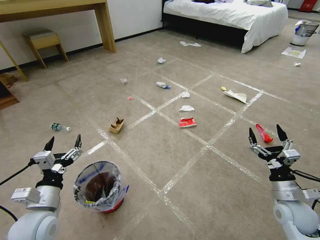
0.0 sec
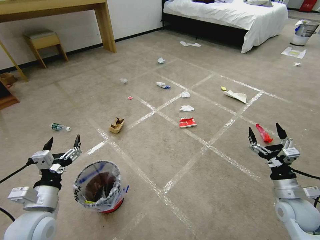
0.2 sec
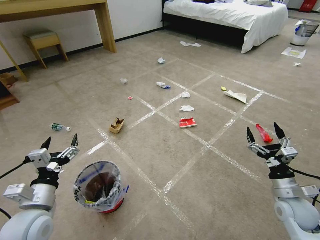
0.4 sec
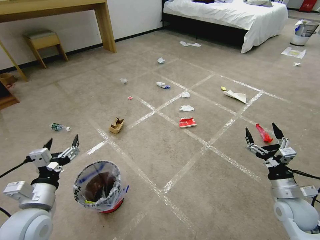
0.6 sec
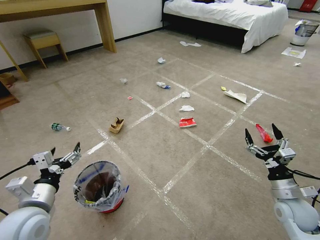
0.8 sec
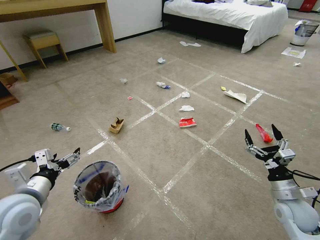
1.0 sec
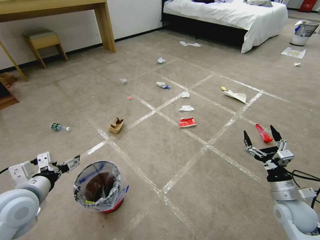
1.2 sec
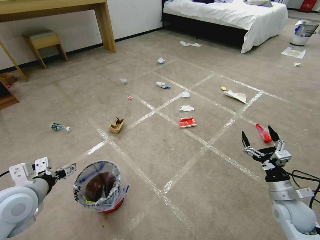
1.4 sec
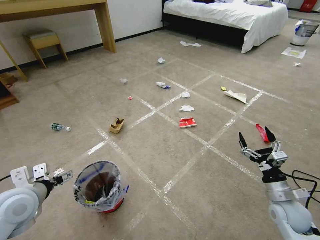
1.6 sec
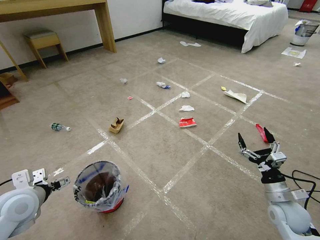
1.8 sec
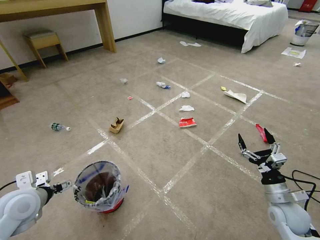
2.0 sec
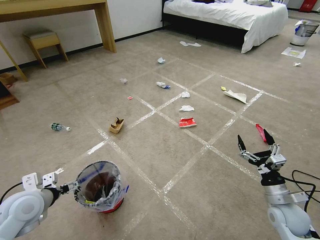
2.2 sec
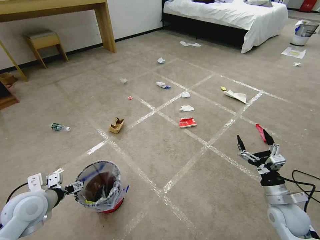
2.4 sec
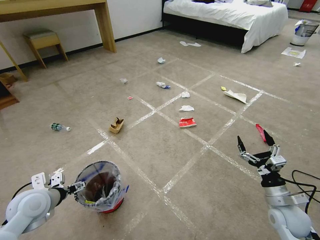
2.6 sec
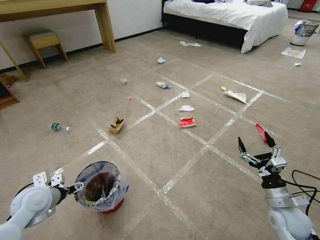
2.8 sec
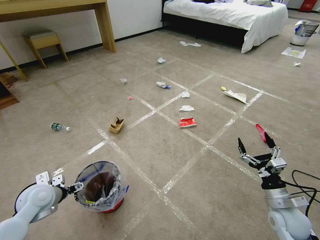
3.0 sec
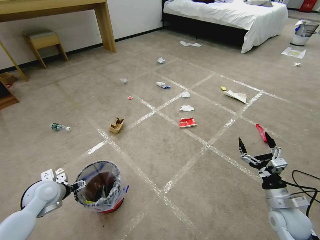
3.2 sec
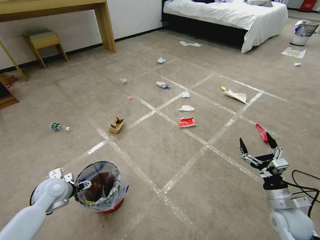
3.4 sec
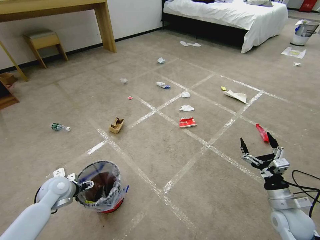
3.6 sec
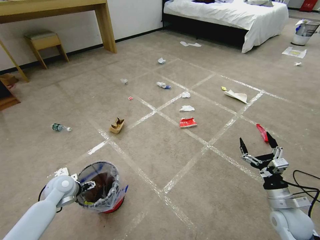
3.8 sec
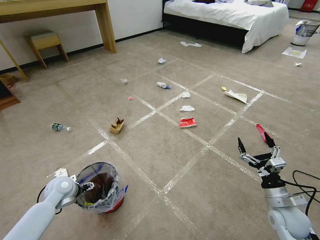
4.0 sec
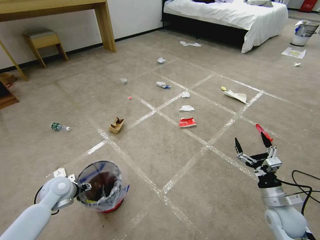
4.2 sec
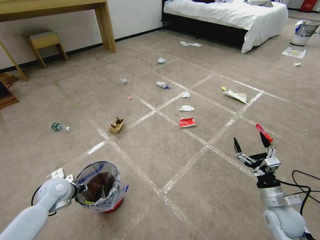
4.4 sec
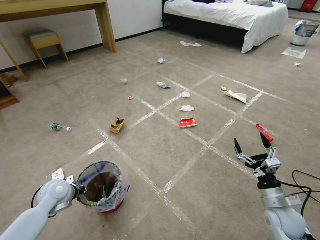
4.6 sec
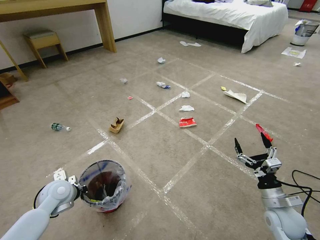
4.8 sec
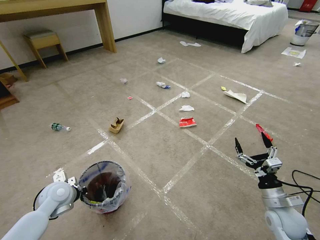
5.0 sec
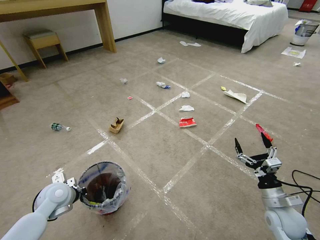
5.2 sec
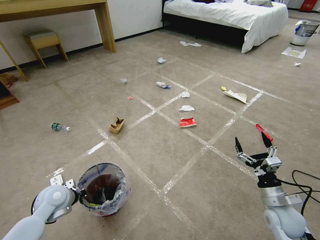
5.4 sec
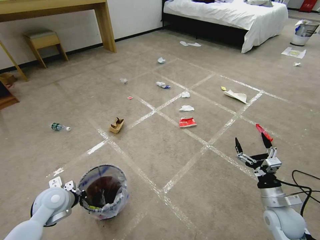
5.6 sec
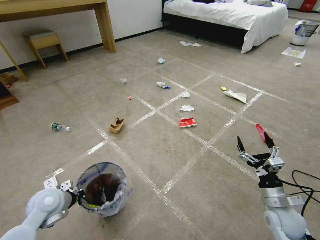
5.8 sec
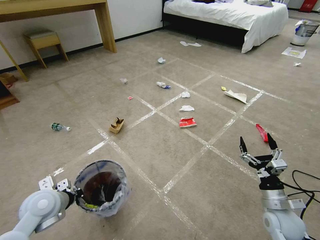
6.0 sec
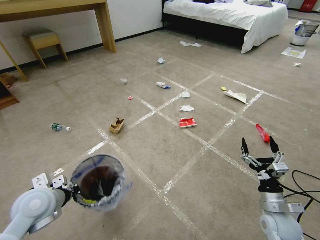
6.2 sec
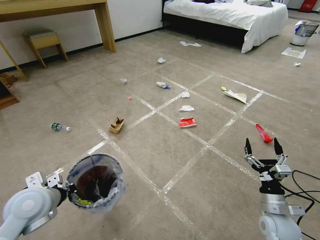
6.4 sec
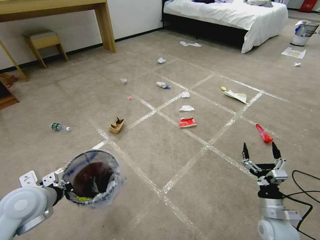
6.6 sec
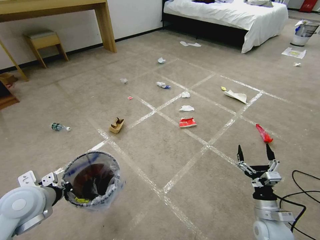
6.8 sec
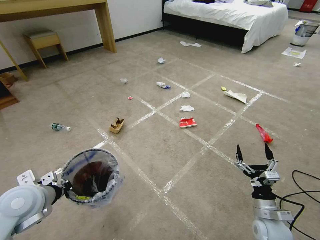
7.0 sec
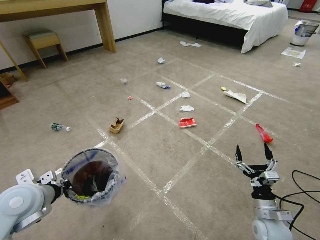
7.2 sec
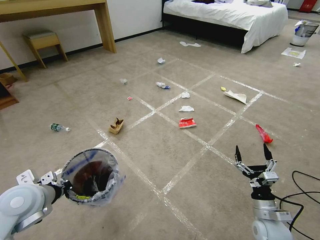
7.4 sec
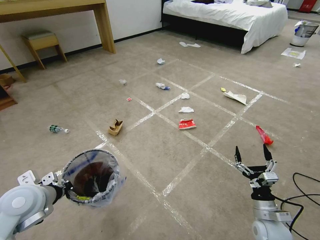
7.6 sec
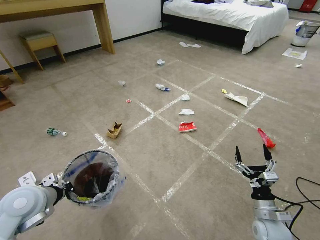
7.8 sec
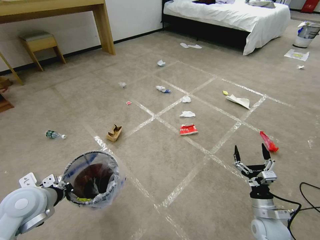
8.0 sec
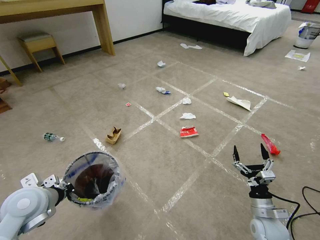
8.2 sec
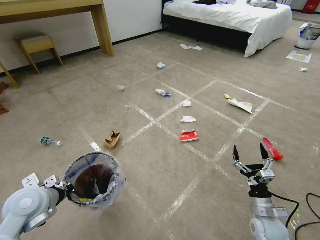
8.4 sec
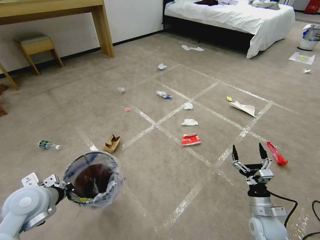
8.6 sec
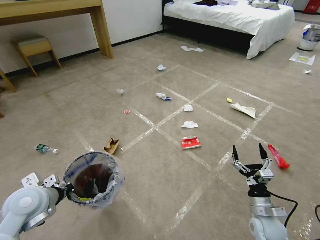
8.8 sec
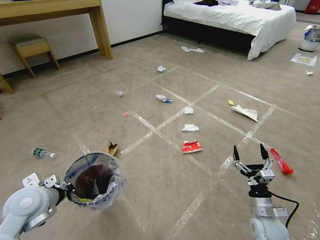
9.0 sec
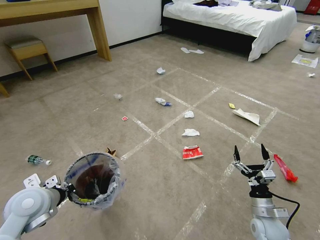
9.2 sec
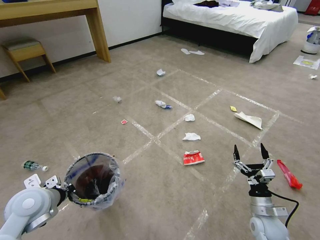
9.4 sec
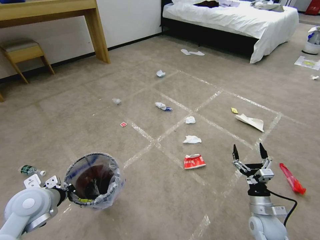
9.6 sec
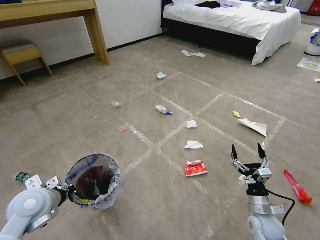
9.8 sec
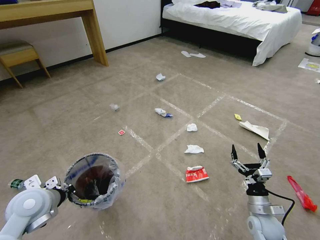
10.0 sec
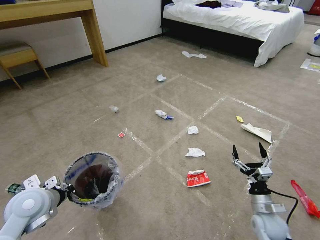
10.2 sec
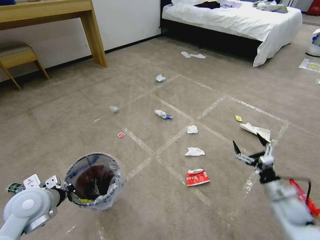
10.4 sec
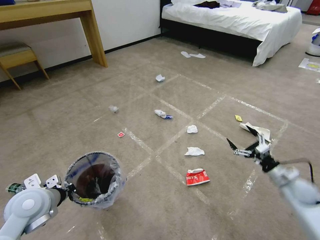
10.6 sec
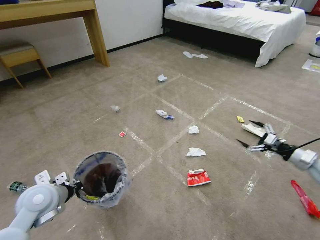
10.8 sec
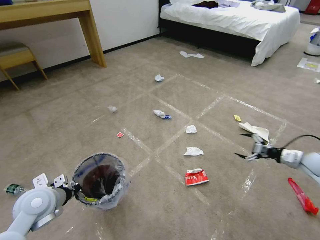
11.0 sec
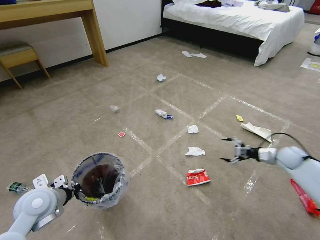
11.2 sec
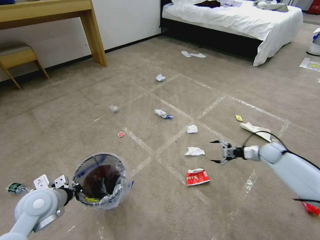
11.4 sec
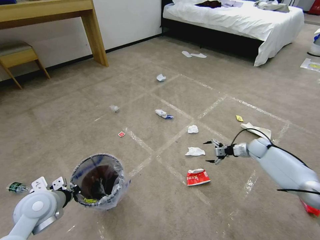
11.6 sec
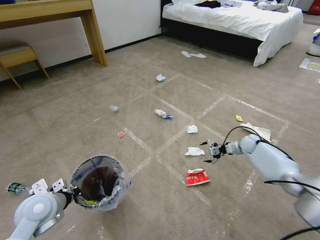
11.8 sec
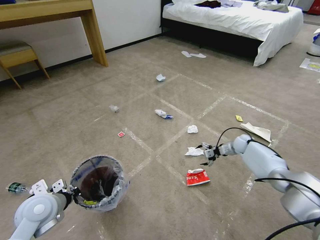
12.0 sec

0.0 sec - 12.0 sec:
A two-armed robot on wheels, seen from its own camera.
Task of the whole recording: Pick up the trash bin and place the garbage on the floor into it.
1.6 sec - 3.0 sec: The left gripper moves downward, approximately 10 cm.
3.0 sec - 4.4 sec: The left gripper closes its fingers.
4.4 sec - 6.0 sec: The left gripper is displaced backward and upward by about 10 cm, and closes up.
6.0 sec - 7.6 sec: The right gripper shifts by approximately 5 cm. The left gripper is displaced upward by approximately 5 cm.
9.0 sec - 10.4 sec: The right gripper moves to the right and forward, approximately 10 cm.
10.4 sec - 12.0 sec: The right gripper travels forward by about 30 cm.

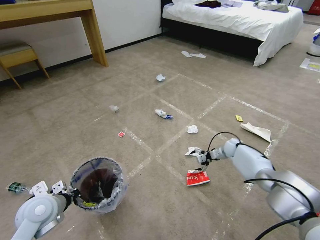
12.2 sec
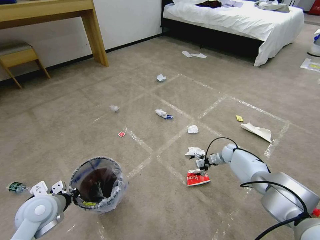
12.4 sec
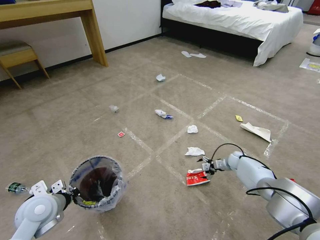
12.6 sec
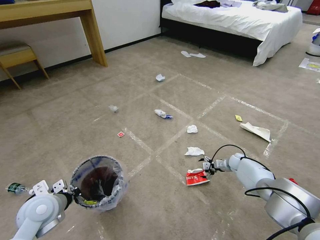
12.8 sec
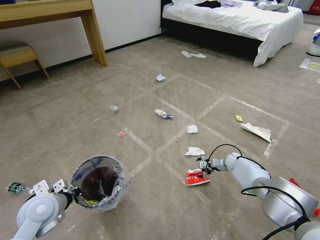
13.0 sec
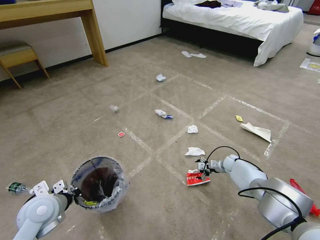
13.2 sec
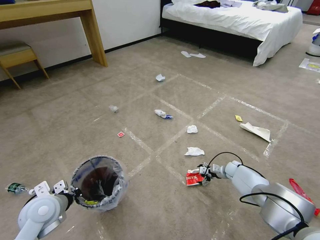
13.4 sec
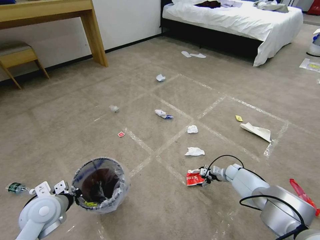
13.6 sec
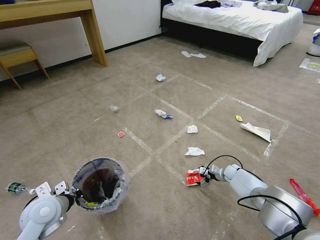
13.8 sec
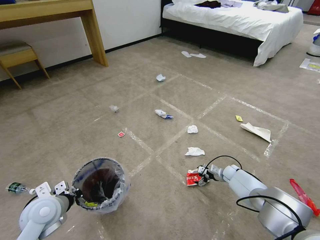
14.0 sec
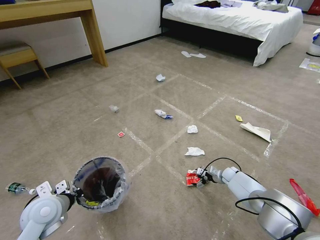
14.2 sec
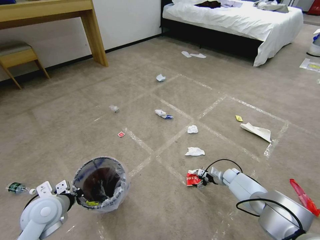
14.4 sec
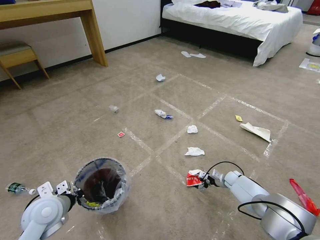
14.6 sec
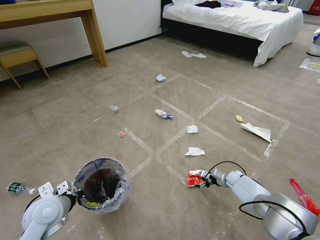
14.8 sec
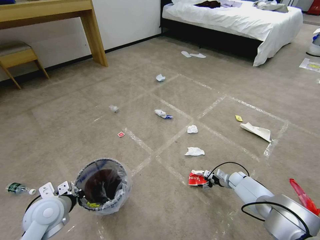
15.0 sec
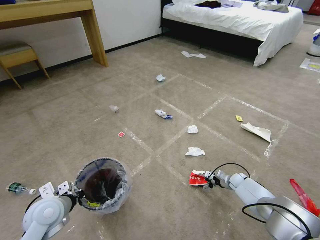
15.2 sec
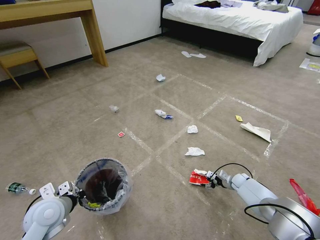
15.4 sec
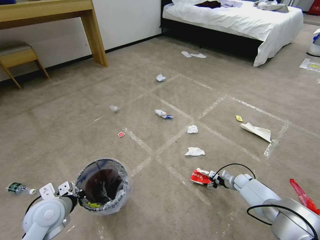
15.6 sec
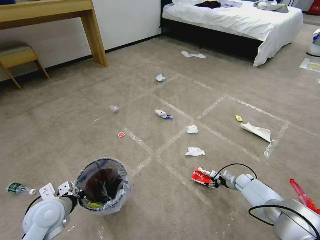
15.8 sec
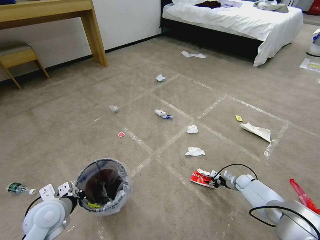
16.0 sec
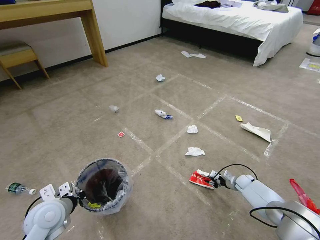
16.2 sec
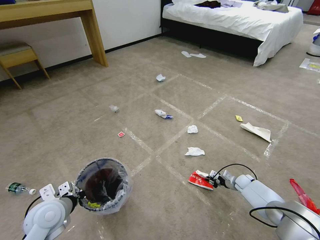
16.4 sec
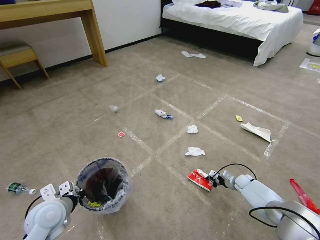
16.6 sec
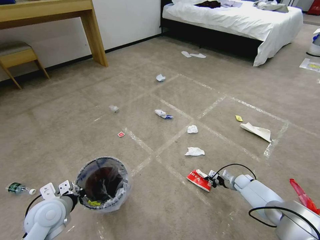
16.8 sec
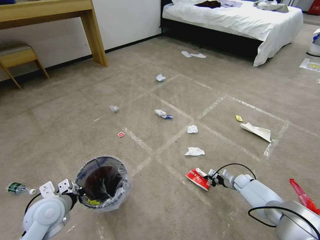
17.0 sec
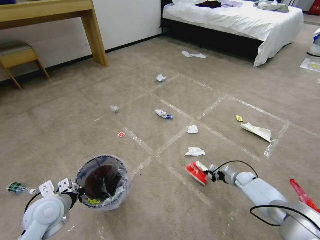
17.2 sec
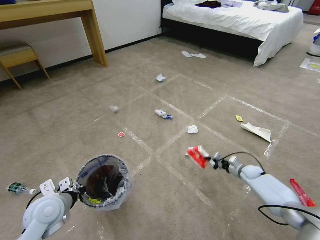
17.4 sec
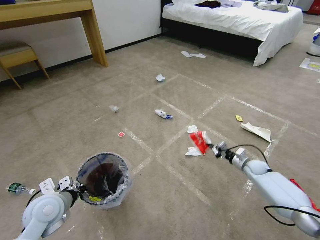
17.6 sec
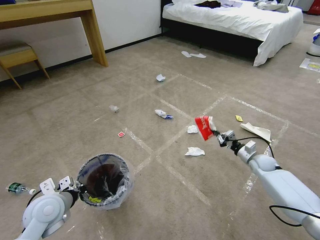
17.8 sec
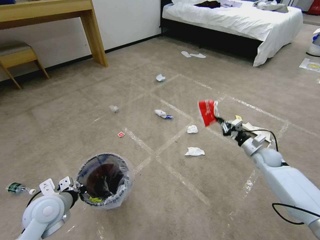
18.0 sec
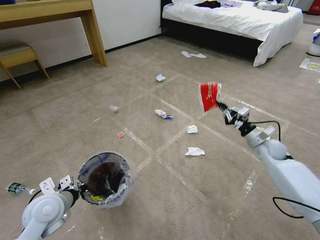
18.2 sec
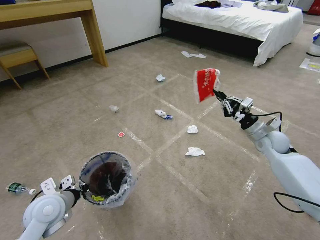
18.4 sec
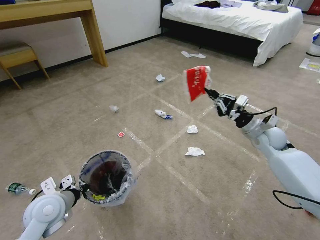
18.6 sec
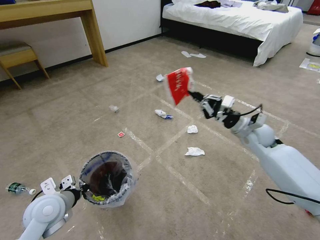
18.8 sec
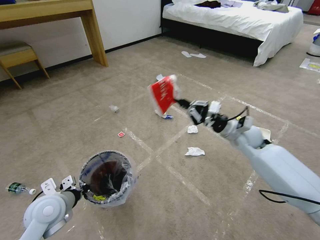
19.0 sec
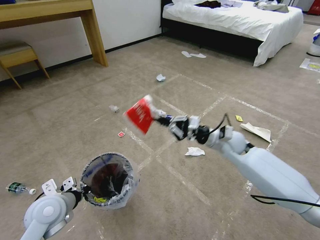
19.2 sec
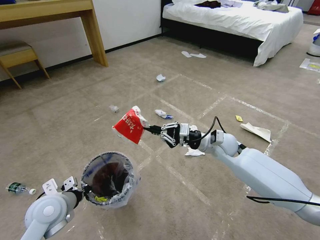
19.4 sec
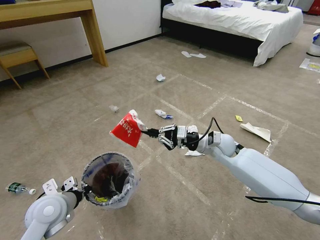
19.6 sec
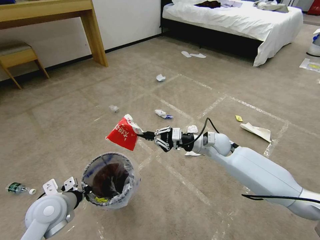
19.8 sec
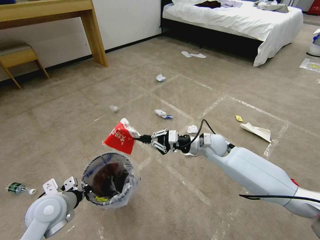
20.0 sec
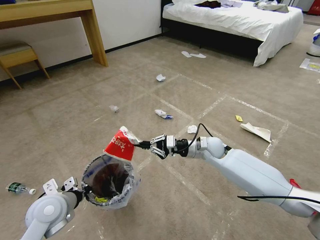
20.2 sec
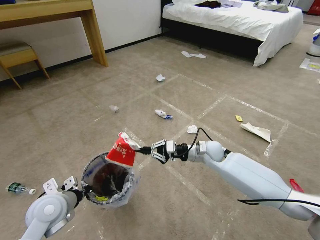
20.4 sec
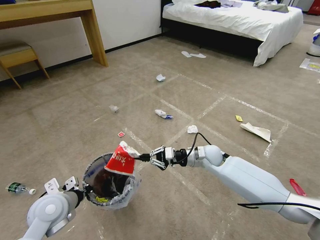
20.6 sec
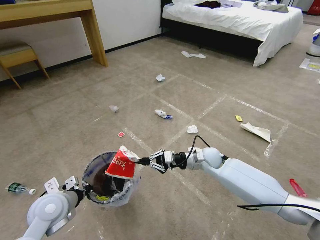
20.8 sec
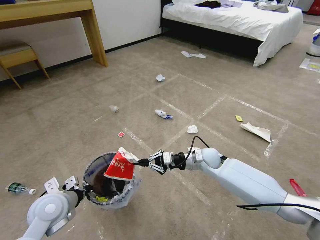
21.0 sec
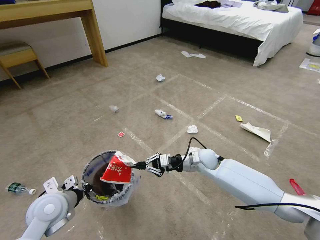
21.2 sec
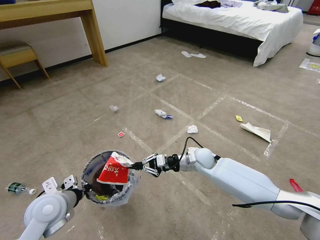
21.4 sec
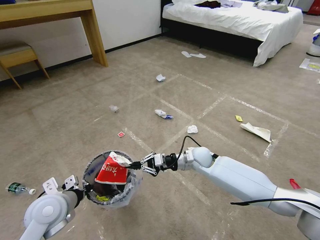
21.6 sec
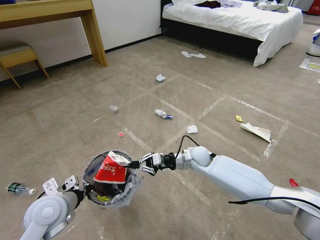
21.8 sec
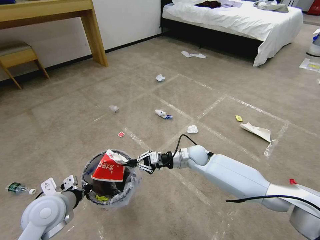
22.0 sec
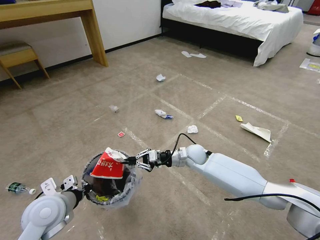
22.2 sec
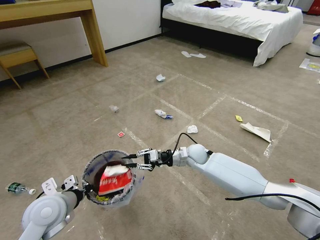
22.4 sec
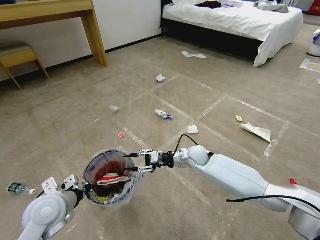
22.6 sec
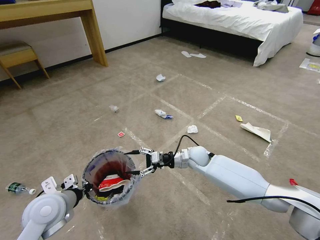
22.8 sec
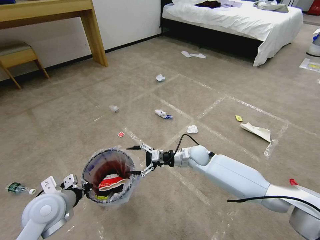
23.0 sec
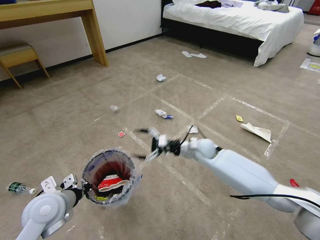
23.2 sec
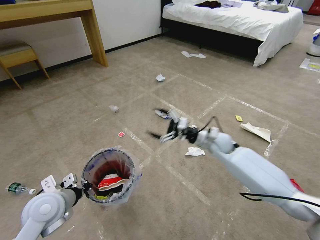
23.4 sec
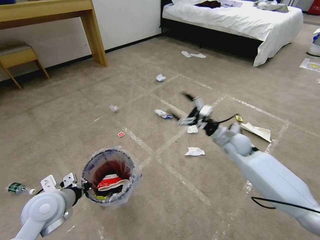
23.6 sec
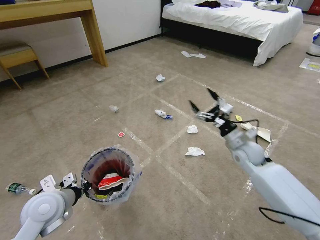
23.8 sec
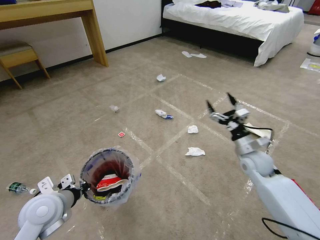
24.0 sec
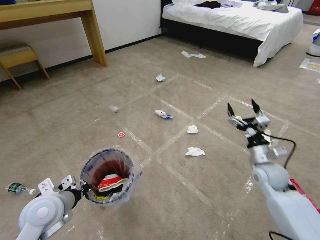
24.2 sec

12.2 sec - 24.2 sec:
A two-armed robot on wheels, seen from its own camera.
Task of the whole recording: Pick up the trash bin and place the garbage on the floor into it.
12.2 sec - 13.8 sec: The right gripper shifts roughly 15 cm downward and backward.
13.8 sec - 15.2 sec: The grippers make only small movements.
15.2 sec - 16.6 sec: The right gripper closes.
16.6 sec - 18.2 sec: The right gripper is displaced upward by some 25 cm.
18.2 sec - 19.8 sec: The right gripper heads to the left, covering approximately 25 cm.
19.8 sec - 21.2 sec: The right gripper goes approximately 10 cm downward.
21.2 sec - 22.6 sec: The right gripper opens.
22.6 sec - 24.2 sec: The right gripper moves to the right and backward, approximately 25 cm, and opens its fingers.
